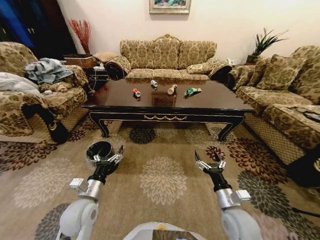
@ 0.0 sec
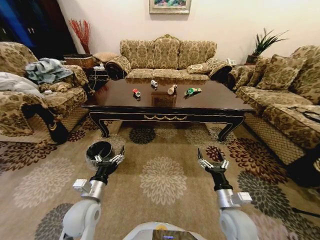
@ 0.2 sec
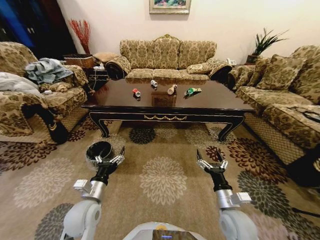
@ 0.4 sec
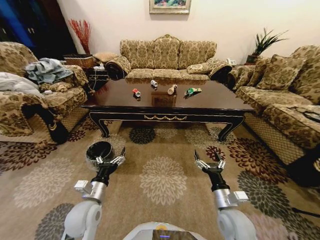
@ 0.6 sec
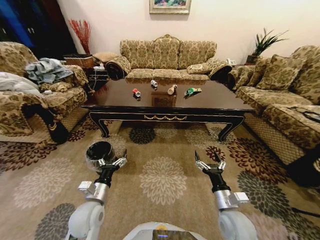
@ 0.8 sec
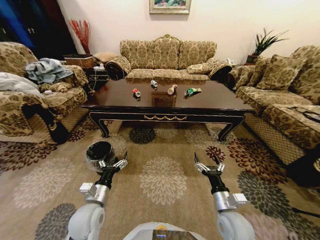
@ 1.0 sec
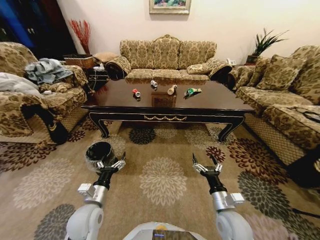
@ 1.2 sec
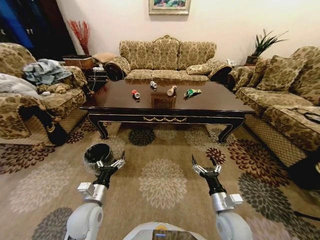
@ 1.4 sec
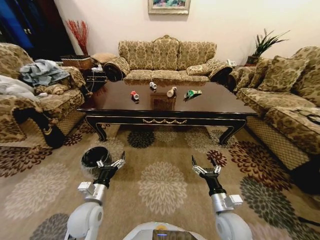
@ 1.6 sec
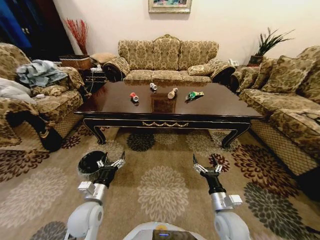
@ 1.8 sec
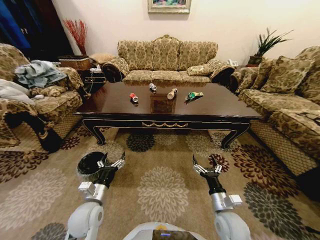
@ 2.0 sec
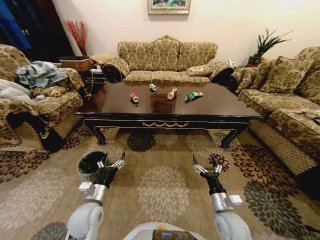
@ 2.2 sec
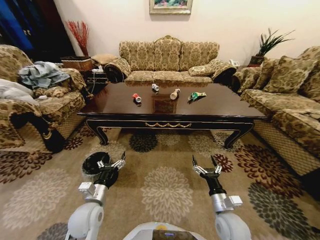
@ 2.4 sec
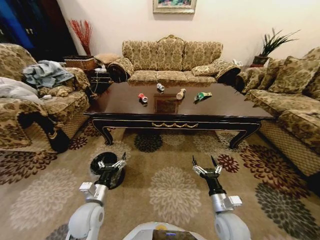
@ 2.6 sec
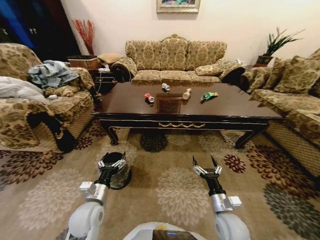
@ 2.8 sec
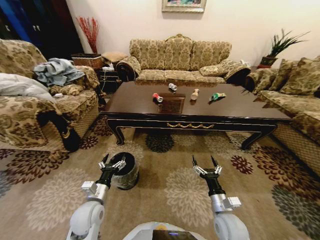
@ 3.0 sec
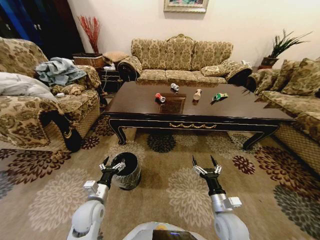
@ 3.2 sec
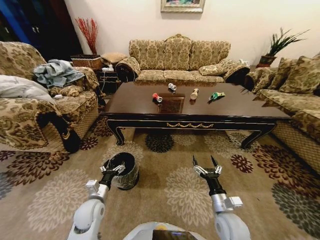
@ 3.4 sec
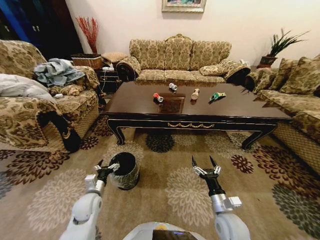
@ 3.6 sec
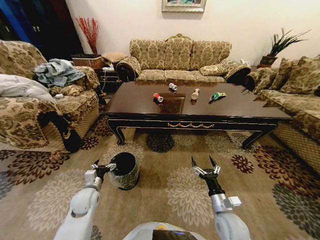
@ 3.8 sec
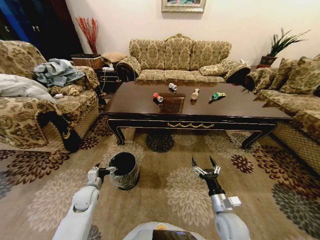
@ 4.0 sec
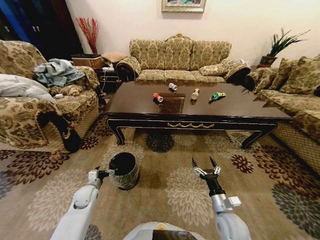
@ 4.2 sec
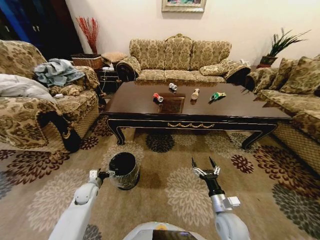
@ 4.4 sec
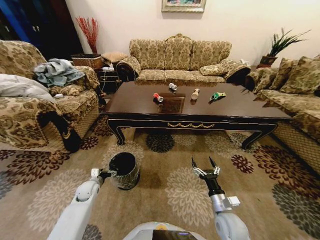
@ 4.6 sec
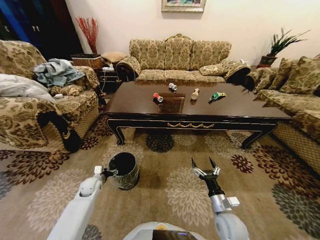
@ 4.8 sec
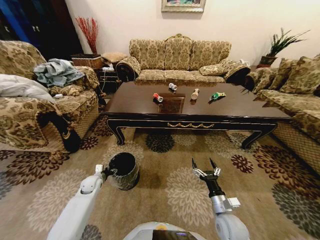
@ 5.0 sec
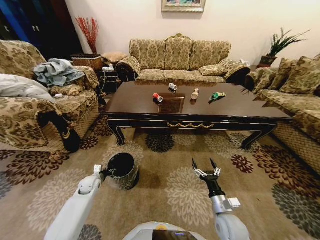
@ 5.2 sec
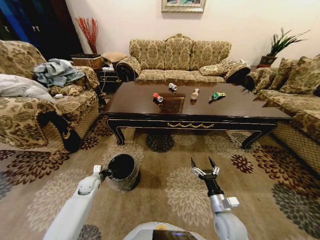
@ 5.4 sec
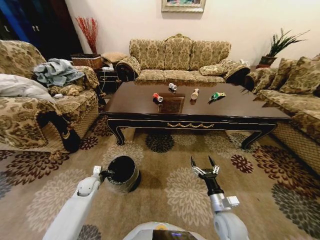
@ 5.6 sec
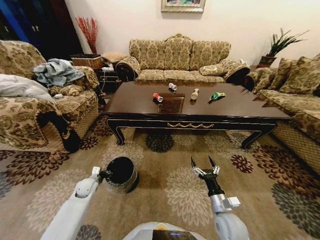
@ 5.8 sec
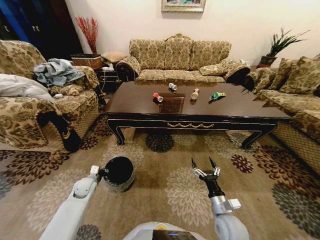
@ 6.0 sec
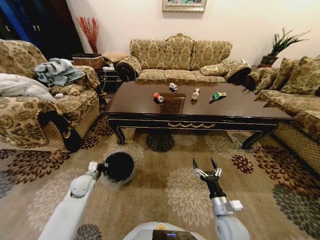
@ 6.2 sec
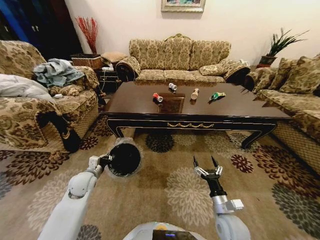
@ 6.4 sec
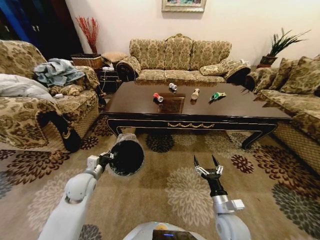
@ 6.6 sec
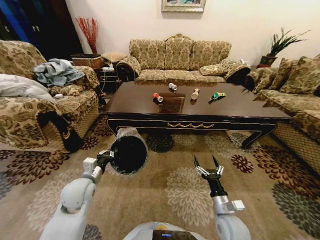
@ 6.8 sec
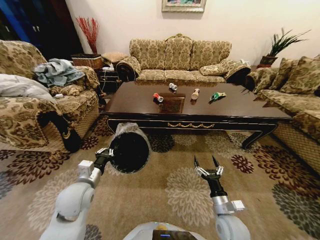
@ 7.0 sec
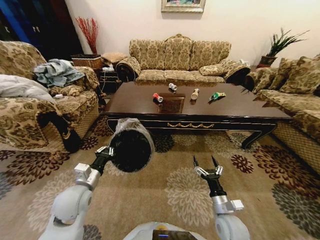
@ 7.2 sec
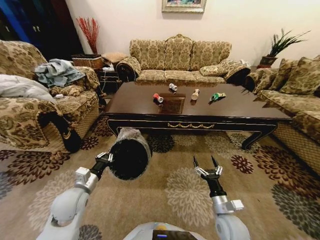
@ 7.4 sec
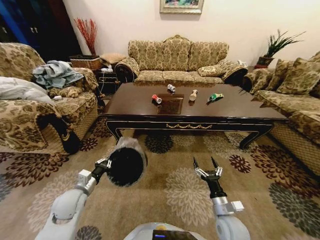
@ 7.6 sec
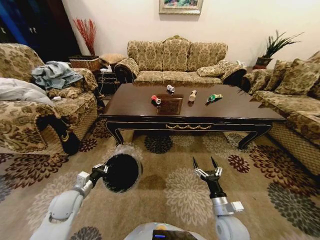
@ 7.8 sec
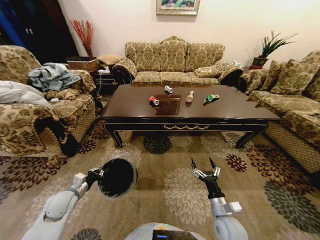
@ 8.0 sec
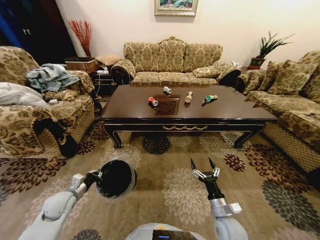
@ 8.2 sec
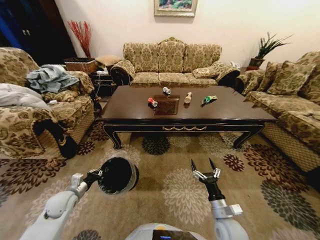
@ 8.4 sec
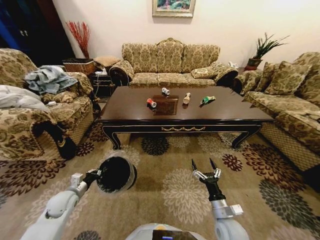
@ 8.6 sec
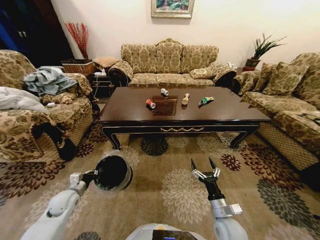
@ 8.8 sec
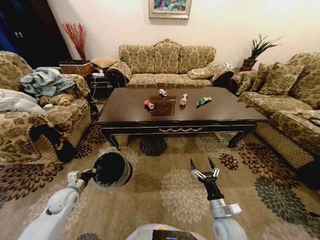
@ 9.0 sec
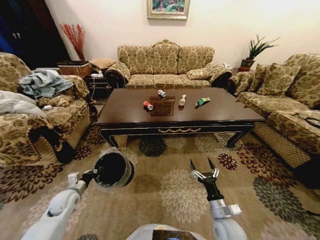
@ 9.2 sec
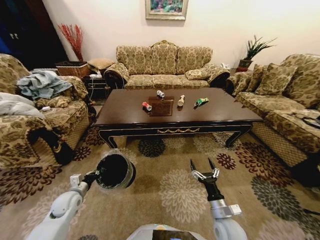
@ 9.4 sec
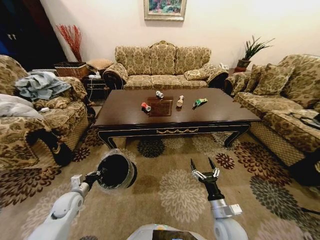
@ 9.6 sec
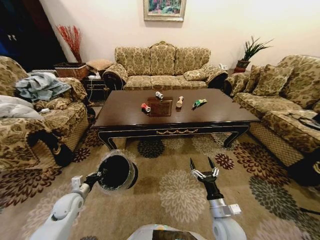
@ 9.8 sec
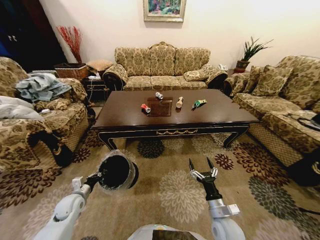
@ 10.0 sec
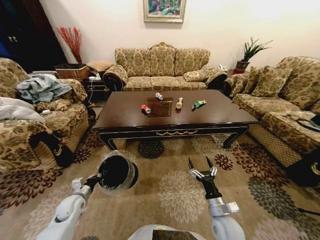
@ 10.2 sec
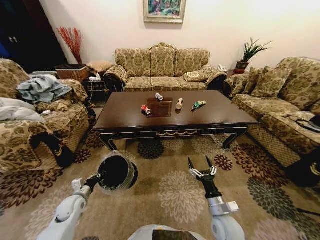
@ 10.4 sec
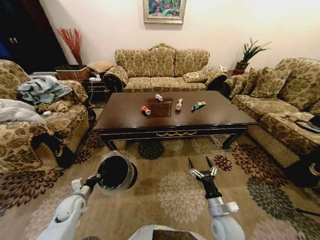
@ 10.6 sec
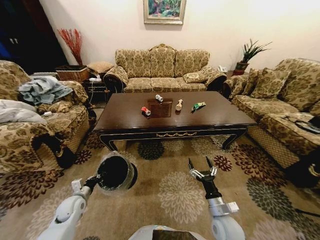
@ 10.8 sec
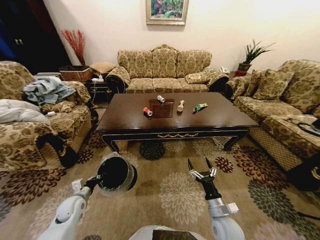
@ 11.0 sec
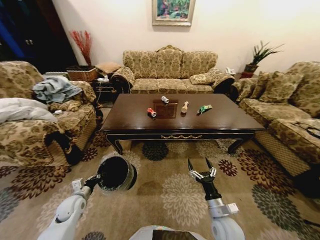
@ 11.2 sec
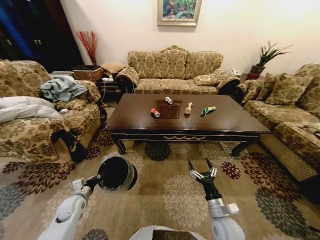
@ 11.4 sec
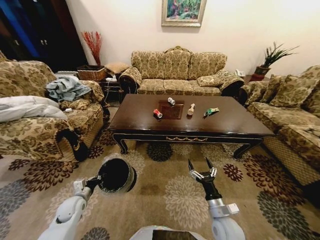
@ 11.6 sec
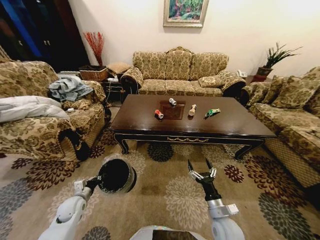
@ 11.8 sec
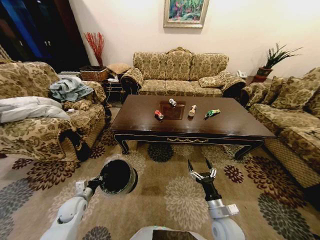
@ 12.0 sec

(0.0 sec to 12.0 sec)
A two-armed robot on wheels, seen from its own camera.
Task of the whole recording: Move to the front of the table and place the trash on the table into the trash bin.
3.0 sec - 4.4 sec: The left gripper moves to the left, downward and forward, roughly 20 cm.
4.4 sec - 6.0 sec: The left gripper closes up.
6.0 sec - 7.6 sec: The left gripper travels upward and backward by approximately 15 cm.
7.6 sec - 9.0 sec: The left gripper shifts roughly 10 cm to the left and downward.

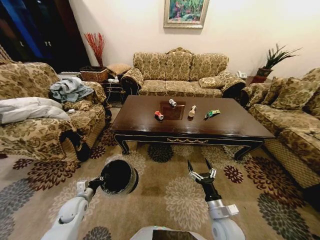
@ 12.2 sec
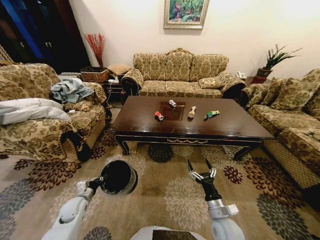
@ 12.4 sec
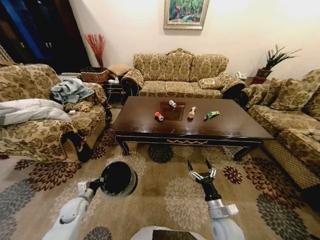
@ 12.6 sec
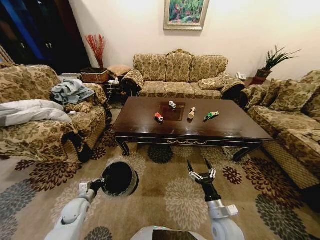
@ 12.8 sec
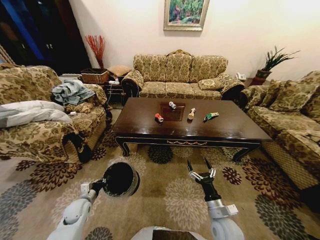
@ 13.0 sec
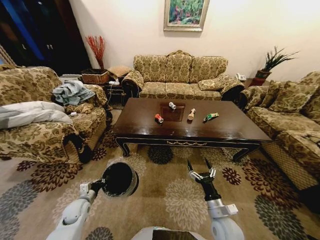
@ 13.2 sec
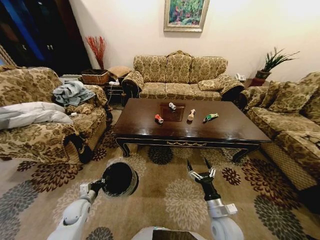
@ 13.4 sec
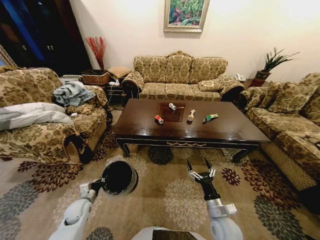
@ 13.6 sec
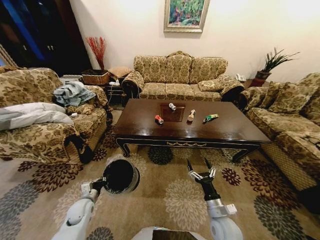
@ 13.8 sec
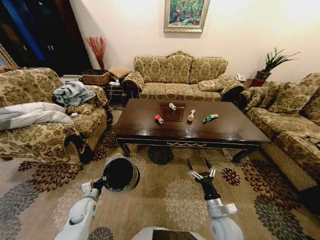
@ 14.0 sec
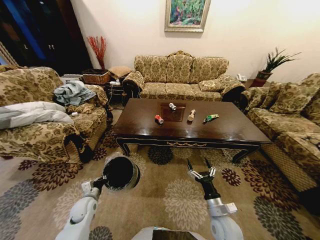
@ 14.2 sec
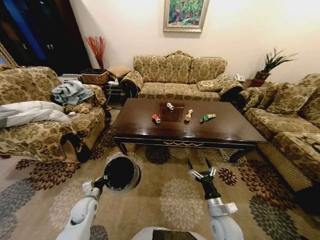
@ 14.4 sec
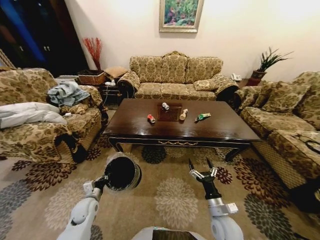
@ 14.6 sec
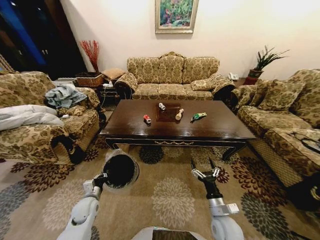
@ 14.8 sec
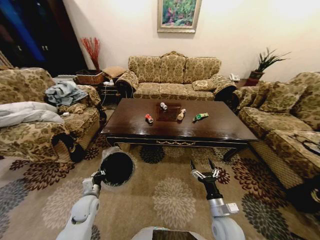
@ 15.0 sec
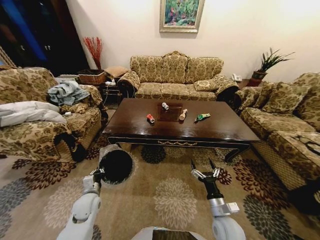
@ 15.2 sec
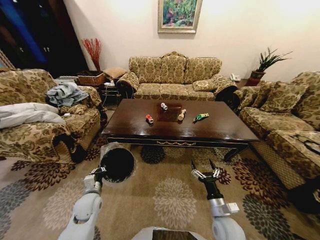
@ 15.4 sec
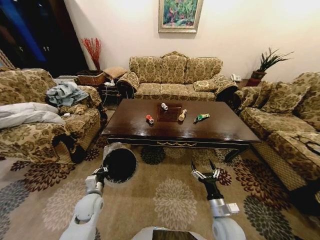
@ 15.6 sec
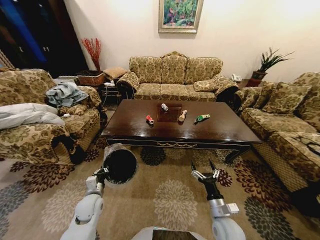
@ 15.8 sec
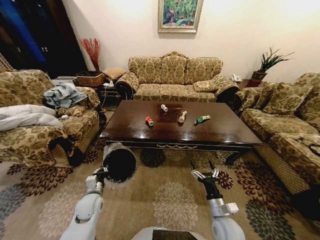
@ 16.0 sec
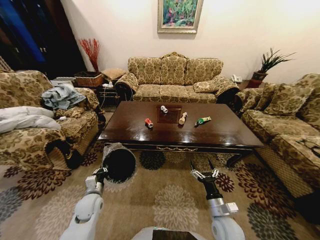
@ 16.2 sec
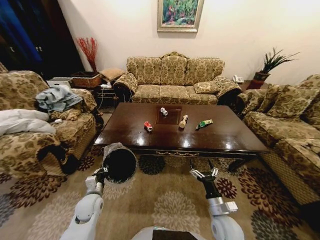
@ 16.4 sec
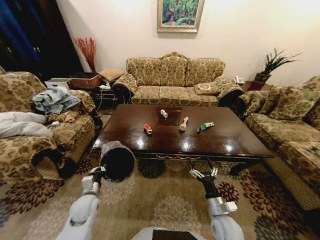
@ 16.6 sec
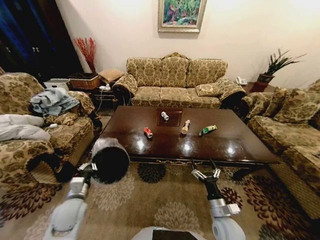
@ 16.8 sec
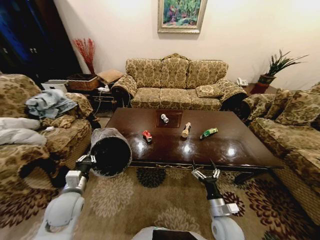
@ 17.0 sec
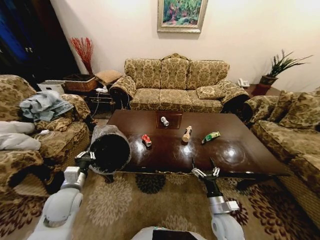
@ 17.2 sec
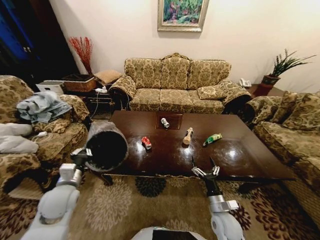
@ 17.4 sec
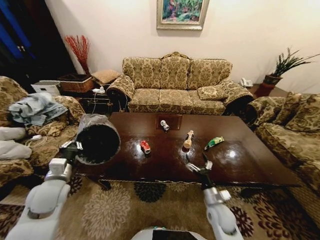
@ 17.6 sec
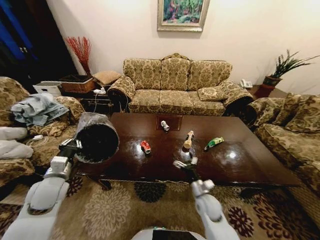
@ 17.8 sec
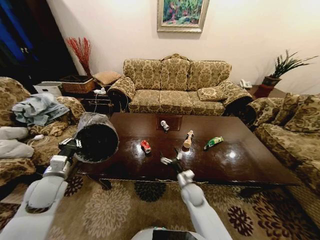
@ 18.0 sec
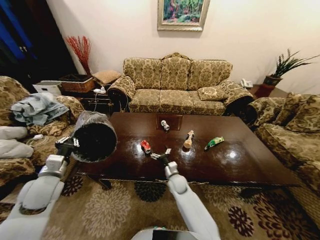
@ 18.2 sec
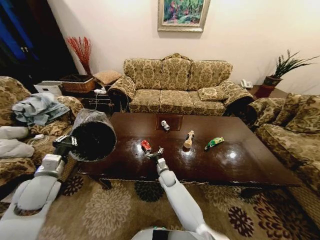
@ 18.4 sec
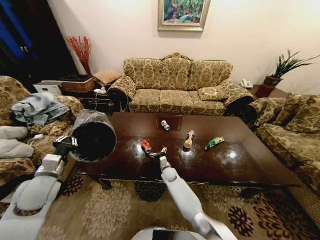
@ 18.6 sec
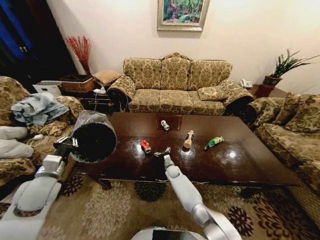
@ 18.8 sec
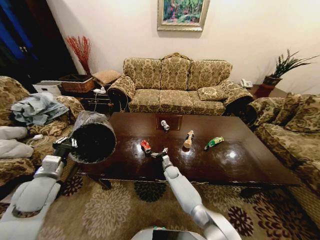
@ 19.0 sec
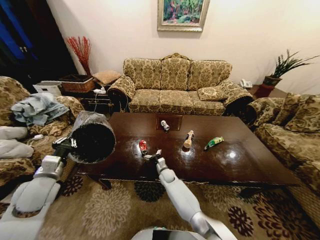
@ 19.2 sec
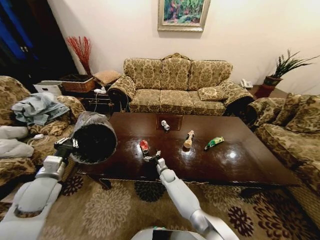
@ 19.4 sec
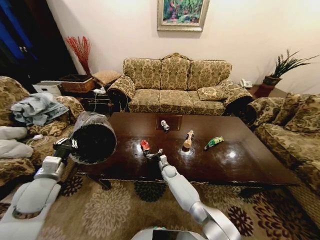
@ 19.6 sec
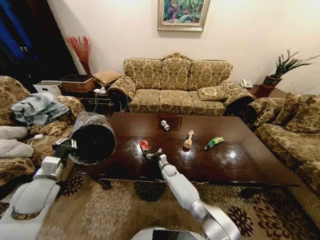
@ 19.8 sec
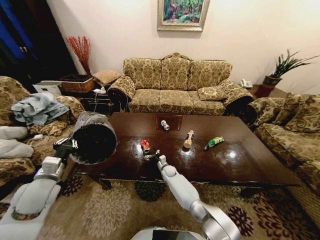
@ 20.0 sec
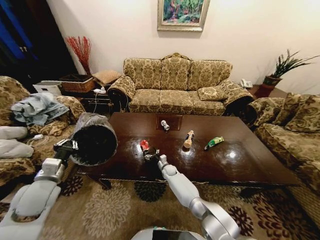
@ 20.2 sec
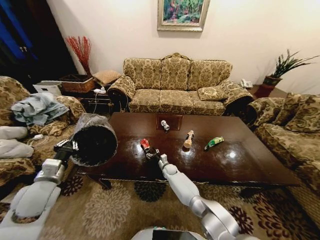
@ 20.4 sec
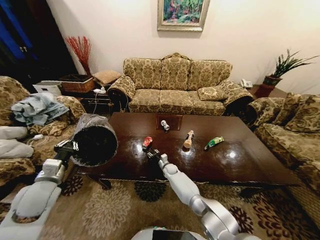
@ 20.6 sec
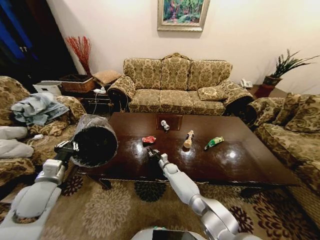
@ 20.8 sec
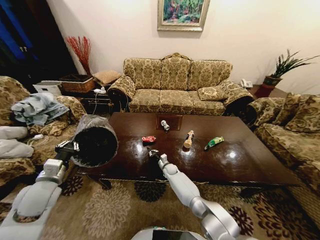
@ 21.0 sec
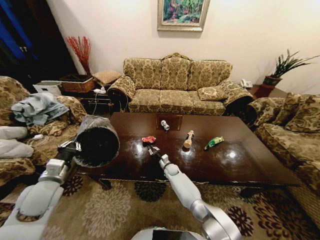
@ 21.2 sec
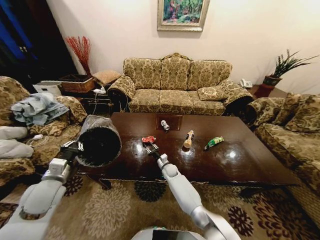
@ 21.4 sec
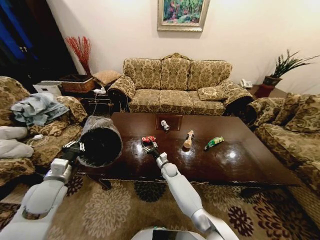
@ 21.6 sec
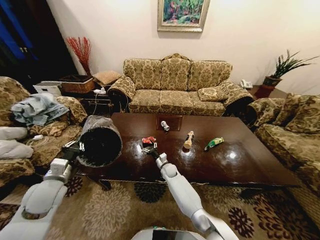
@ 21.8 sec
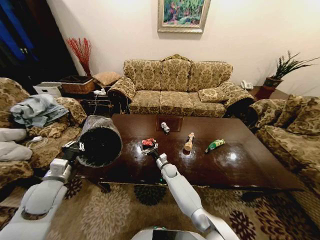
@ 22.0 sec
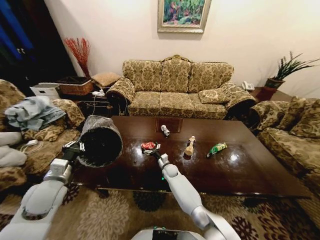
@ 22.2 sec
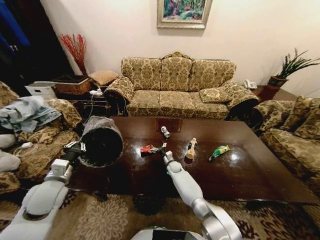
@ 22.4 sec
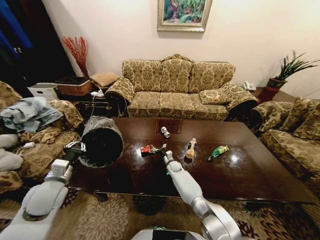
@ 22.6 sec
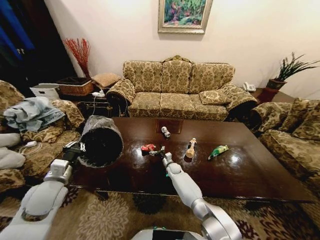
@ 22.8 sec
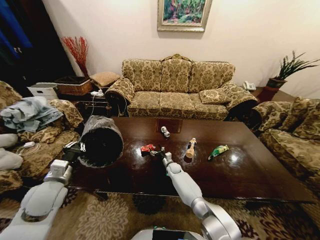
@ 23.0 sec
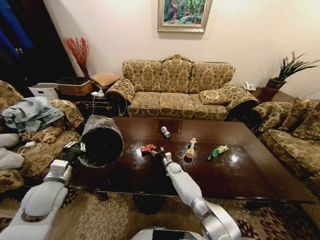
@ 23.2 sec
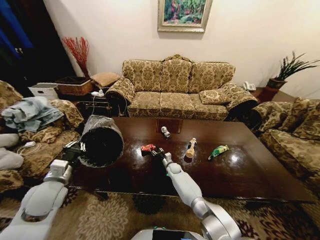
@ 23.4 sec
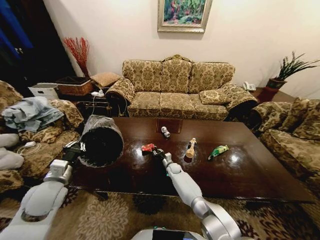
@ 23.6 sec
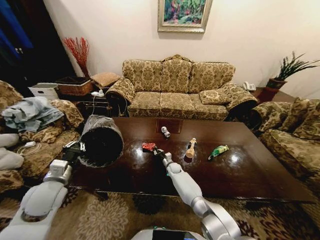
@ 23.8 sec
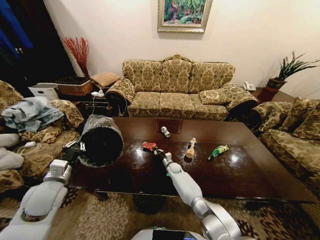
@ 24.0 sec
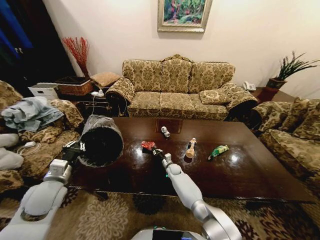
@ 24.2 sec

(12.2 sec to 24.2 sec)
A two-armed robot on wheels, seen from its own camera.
Task of the whole recording: Move to the front of the table and place the trash on the table into the trash bin.
13.8 sec - 15.2 sec: The left gripper travels upward by roughly 5 cm.
16.6 sec - 18.2 sec: The left gripper goes approximately 15 cm upward and to the left. The right gripper moves forward and to the left, some 25 cm.
18.2 sec - 19.8 sec: The right gripper moves forward and backward over about 10 cm, changing direction 2 times.
19.8 sec - 21.2 sec: The right gripper closes its fingers.
21.2 sec - 22.6 sec: The right gripper opens up.
22.6 sec - 24.2 sec: The right gripper closes.
